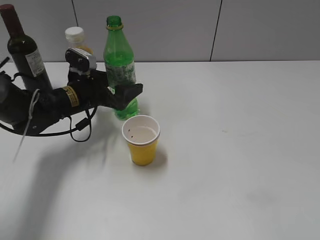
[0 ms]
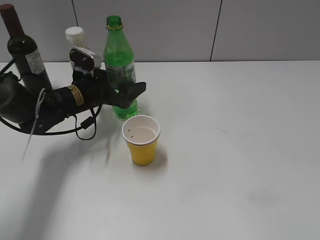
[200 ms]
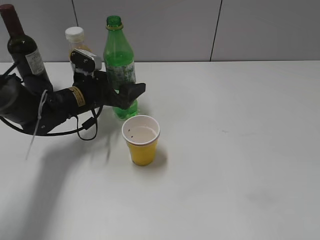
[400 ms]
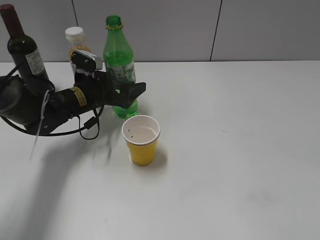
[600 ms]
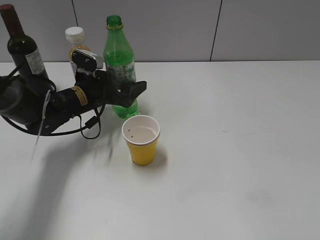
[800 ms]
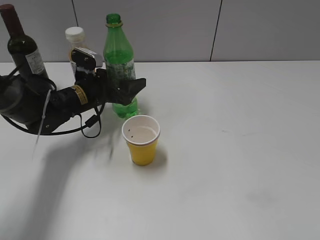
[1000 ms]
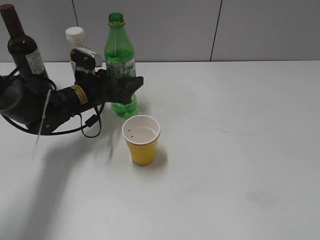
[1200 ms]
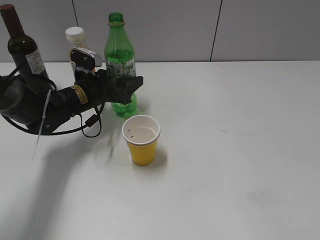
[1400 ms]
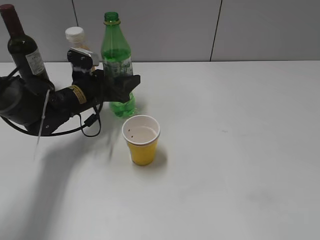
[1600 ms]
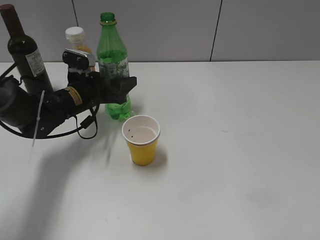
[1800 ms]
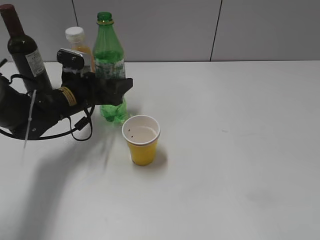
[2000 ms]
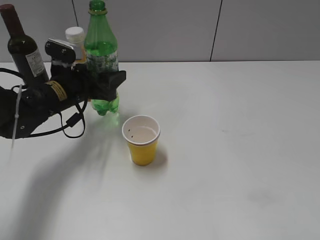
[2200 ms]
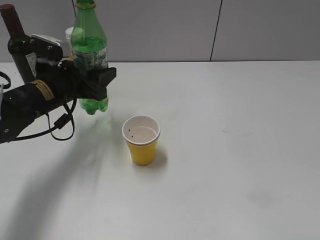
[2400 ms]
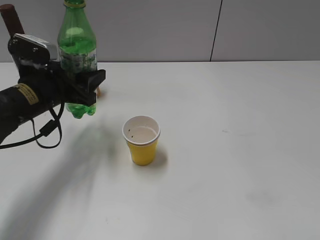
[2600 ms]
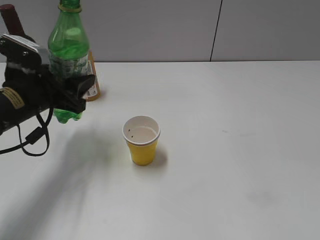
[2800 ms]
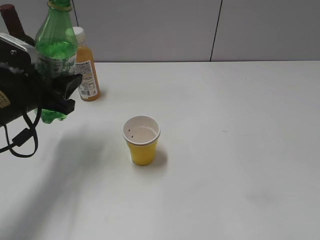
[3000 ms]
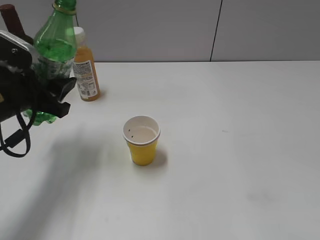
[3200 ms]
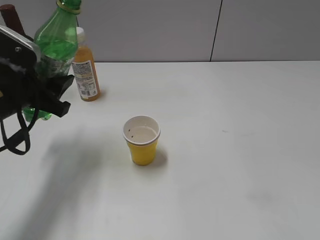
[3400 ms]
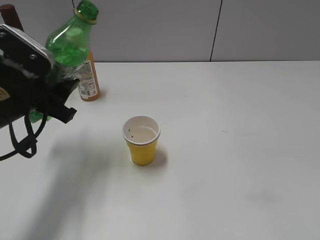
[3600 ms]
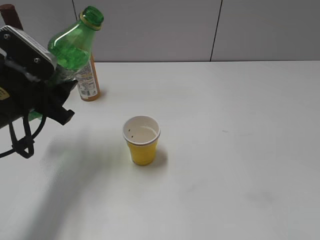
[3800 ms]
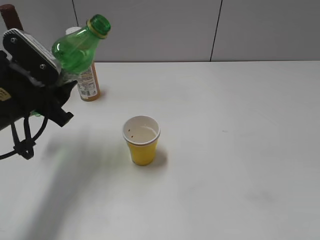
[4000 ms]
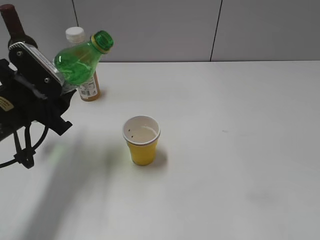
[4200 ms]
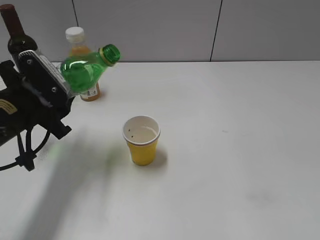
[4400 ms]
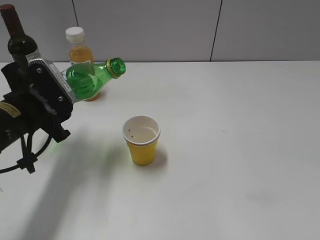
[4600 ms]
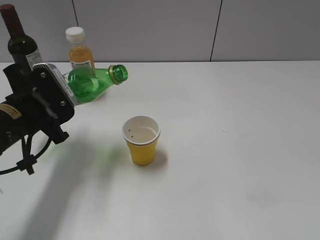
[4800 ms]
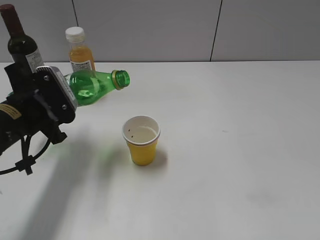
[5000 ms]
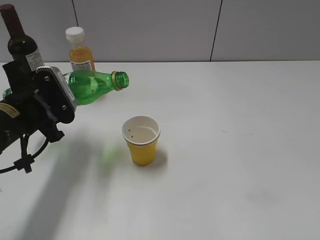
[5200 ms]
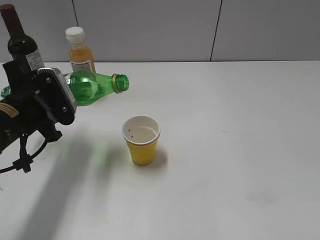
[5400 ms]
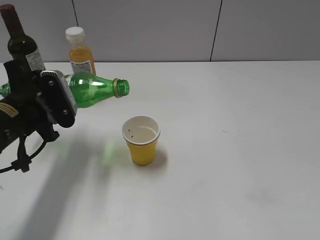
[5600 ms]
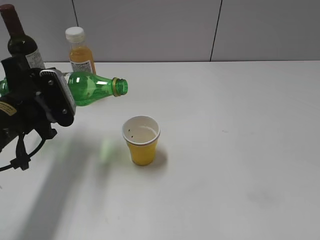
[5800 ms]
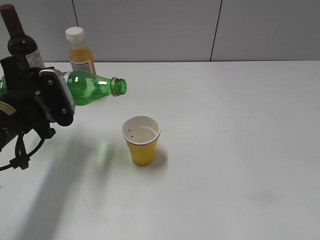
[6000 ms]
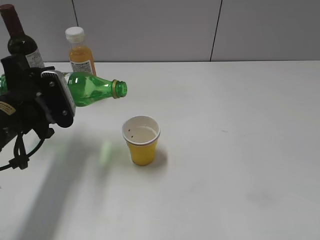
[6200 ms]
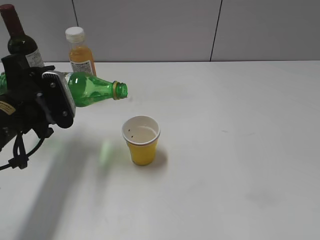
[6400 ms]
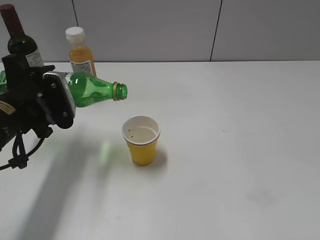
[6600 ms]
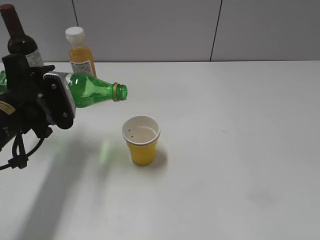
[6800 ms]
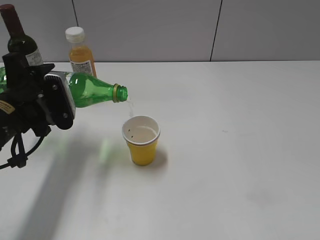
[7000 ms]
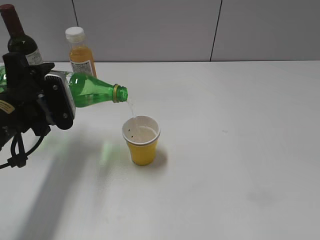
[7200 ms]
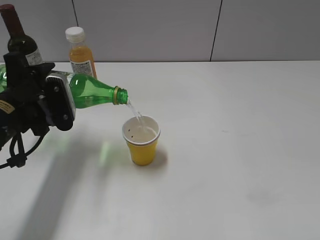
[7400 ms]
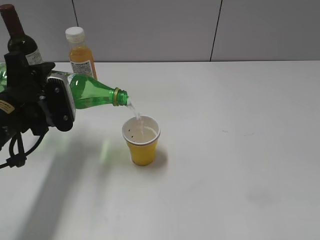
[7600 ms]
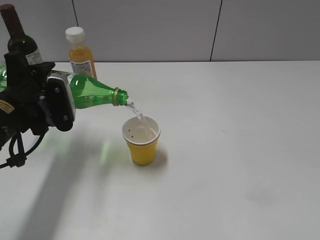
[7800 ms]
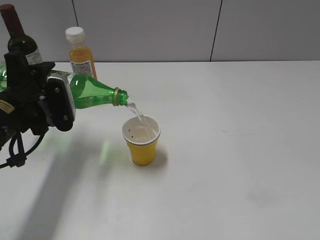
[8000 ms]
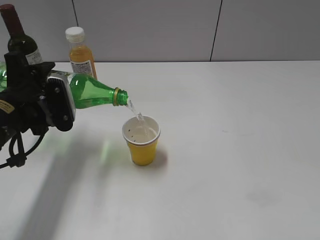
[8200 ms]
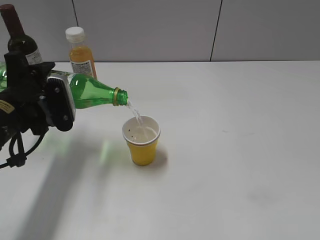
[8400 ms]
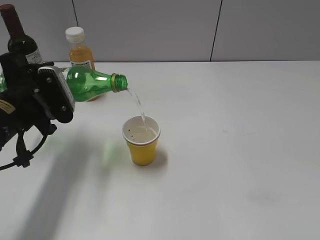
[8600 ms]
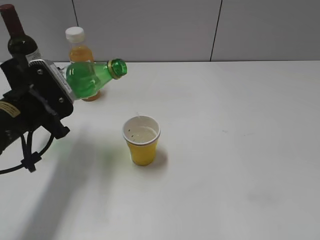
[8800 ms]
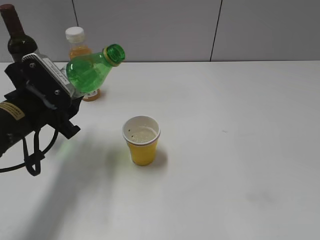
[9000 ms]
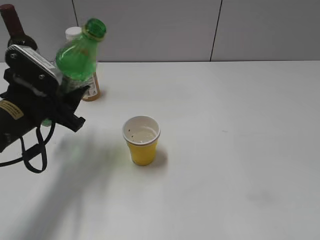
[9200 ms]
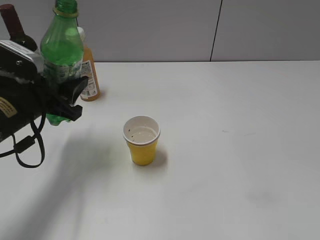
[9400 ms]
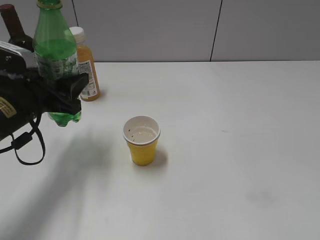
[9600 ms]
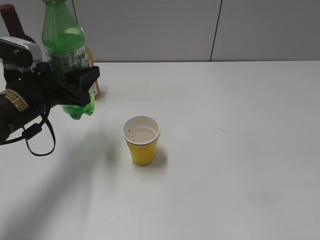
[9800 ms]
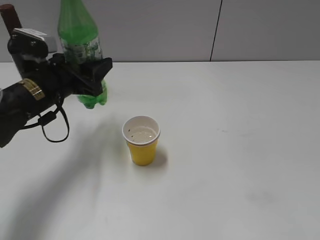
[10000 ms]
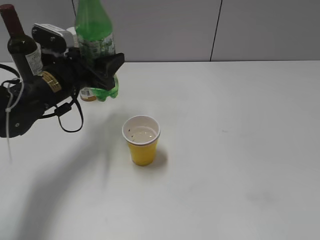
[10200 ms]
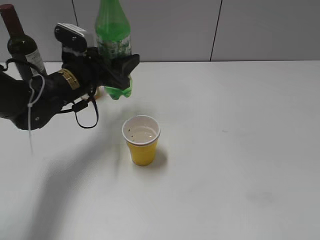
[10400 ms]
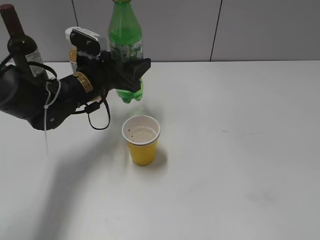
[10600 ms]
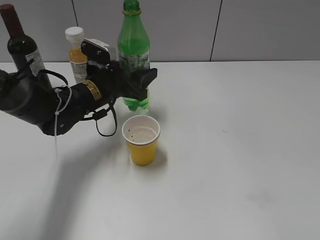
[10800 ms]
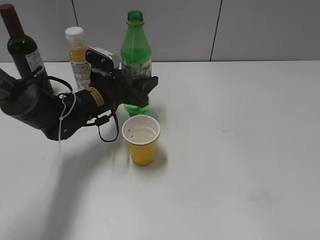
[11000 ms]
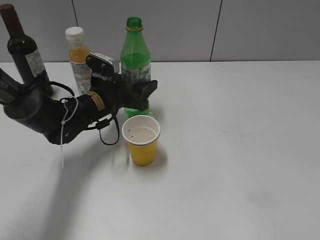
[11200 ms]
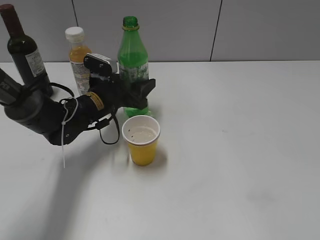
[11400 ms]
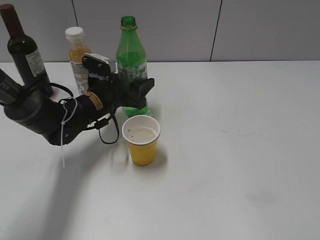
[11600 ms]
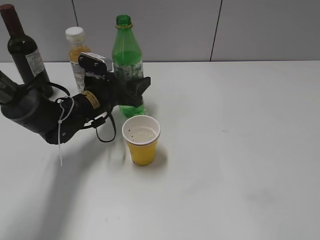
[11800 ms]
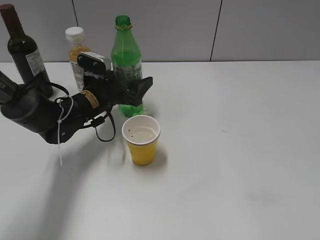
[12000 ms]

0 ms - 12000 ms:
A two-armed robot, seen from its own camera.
Step, 1600 ms - 8800 ms: Pour the sprite from bottle to cup with left gripper.
0 ms - 1600 ms: The left gripper closes its fingers.
1600 ms - 3000 ms: The left gripper moves backward, upward and to the left, about 15 cm.
6000 ms - 7600 ms: The grippers stay close to where they were, moving slightly.
9000 ms - 10400 ms: The left gripper heads forward and to the right, covering about 10 cm.
10400 ms - 12000 ms: The left gripper goes about 5 cm downward, and opens up.

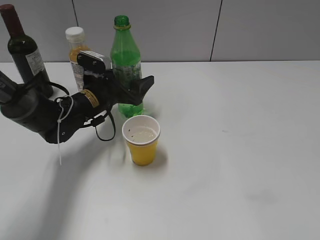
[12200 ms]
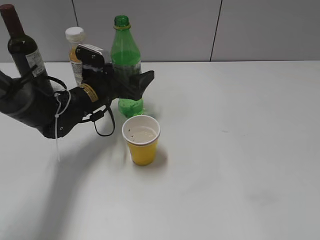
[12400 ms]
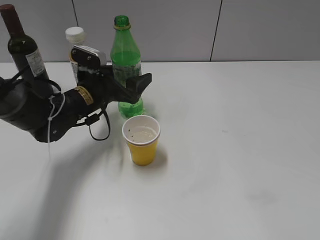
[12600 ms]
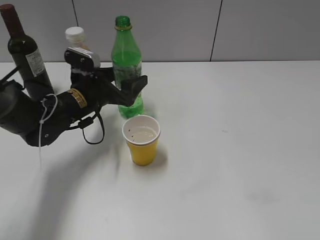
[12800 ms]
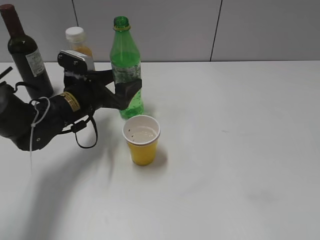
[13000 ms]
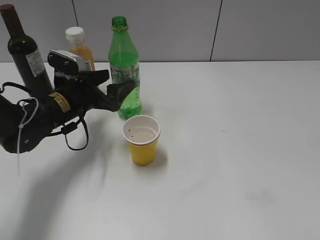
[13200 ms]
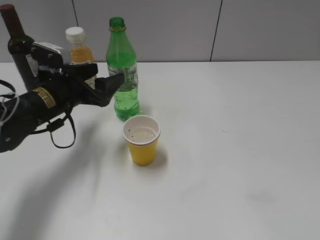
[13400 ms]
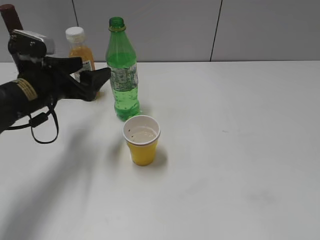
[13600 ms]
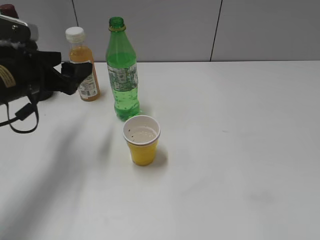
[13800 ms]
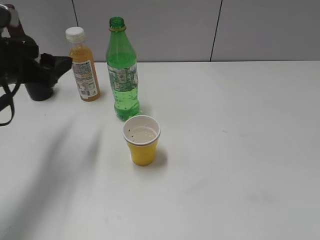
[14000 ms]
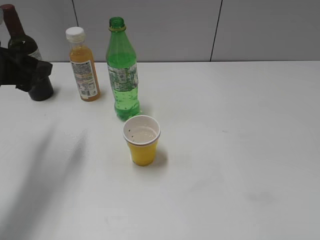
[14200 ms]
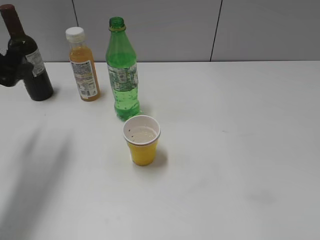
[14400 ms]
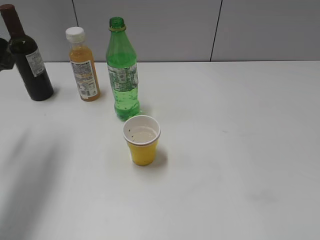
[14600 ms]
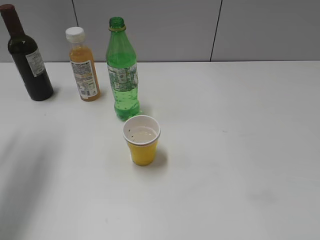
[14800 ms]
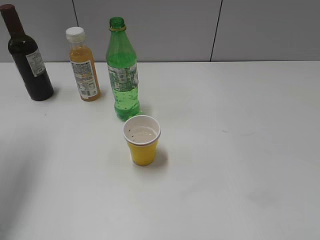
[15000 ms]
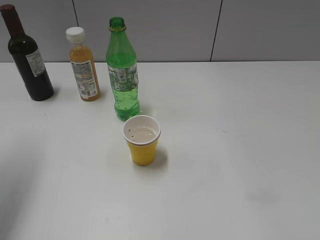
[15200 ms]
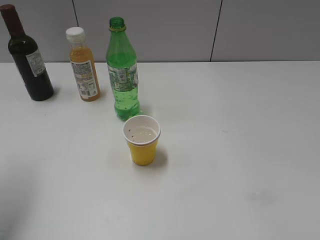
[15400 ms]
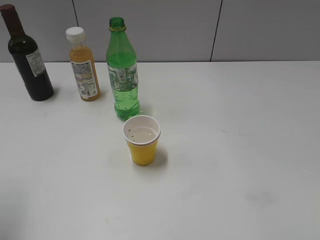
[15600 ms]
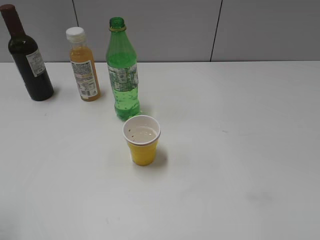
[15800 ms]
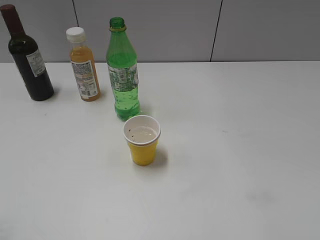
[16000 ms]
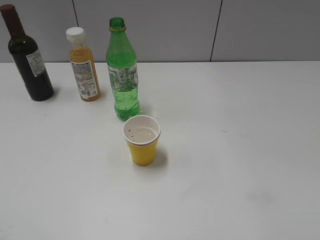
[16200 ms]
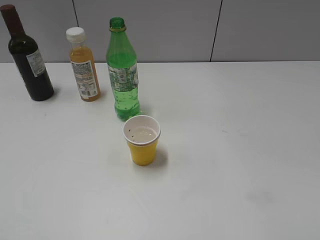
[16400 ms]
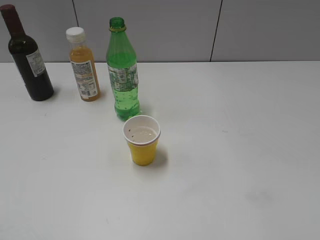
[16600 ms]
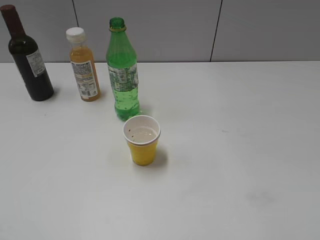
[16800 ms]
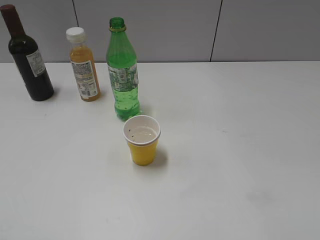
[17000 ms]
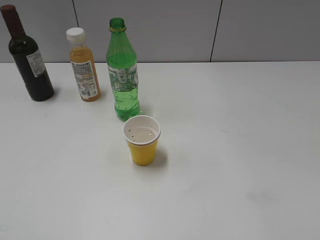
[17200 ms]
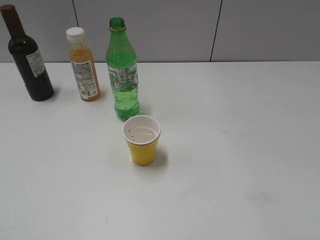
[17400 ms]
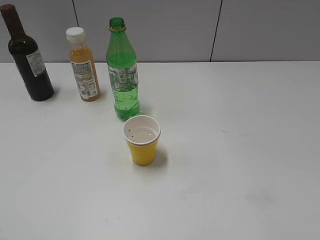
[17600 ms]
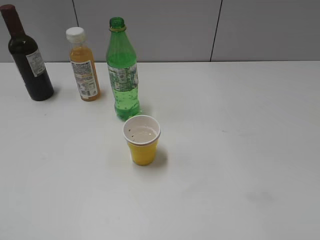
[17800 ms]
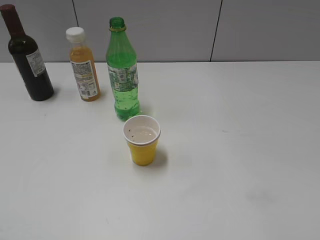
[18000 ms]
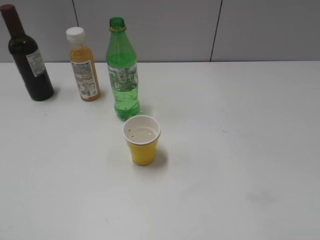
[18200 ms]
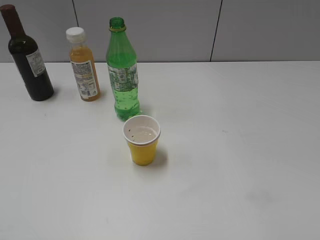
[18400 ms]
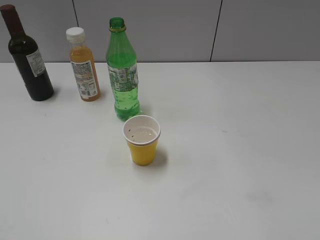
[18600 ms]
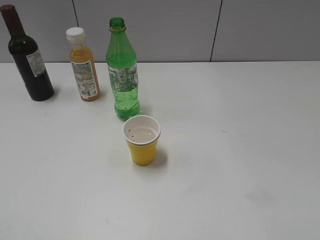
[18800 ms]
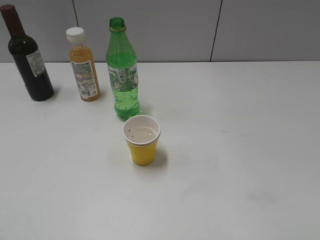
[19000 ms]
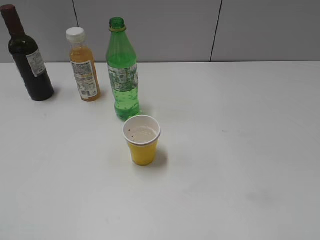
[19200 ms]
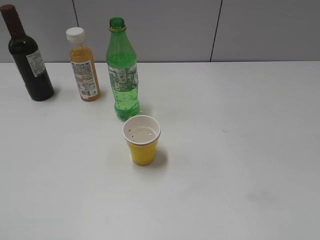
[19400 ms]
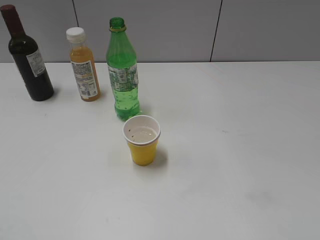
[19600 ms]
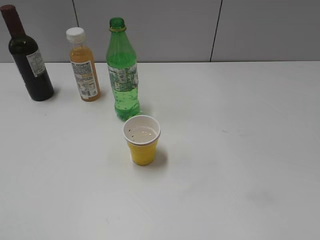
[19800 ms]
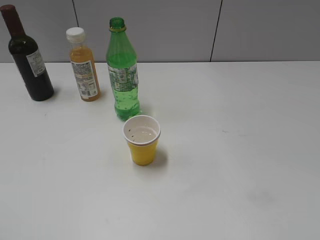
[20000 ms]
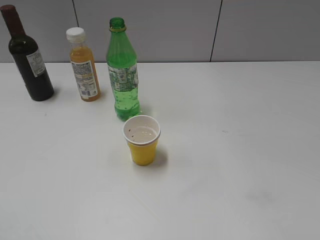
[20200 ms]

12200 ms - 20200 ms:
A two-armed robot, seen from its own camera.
12200 ms - 13800 ms: The left gripper goes approximately 15 cm upward, to the left and backward.
13800 ms - 15400 ms: The left gripper is displaced upward, backward and to the left by roughly 15 cm.
15400 ms - 17000 ms: The left gripper moves backward, some 20 cm.
17000 ms - 20200 ms: Both grippers stay put.
